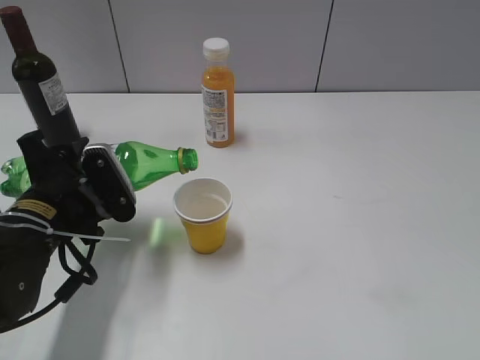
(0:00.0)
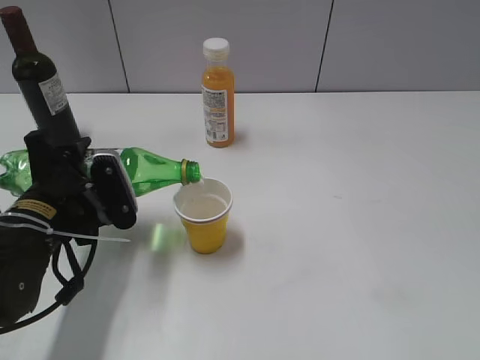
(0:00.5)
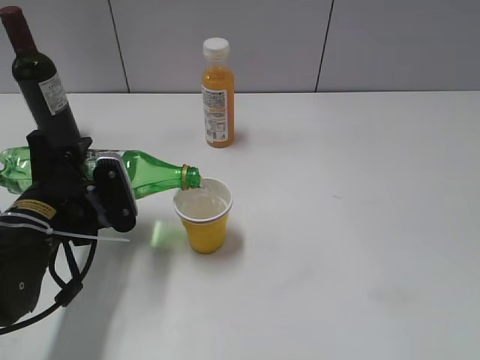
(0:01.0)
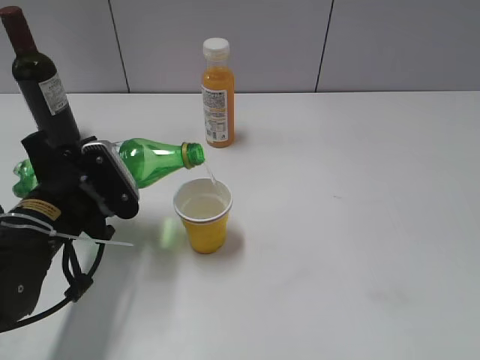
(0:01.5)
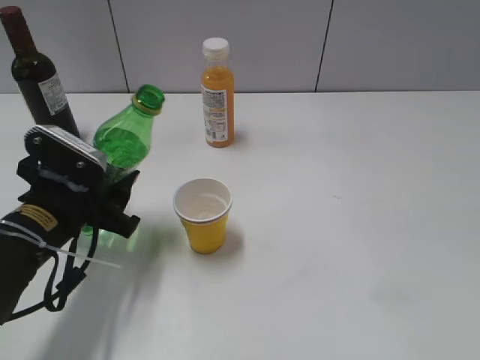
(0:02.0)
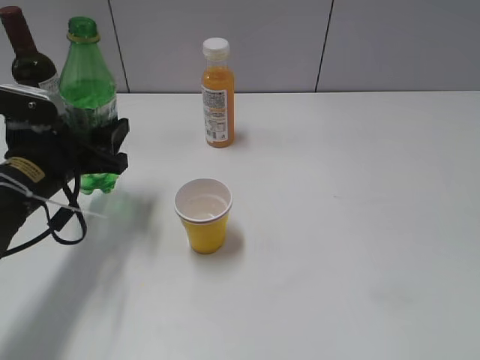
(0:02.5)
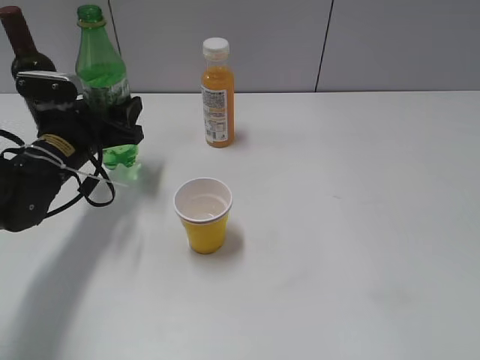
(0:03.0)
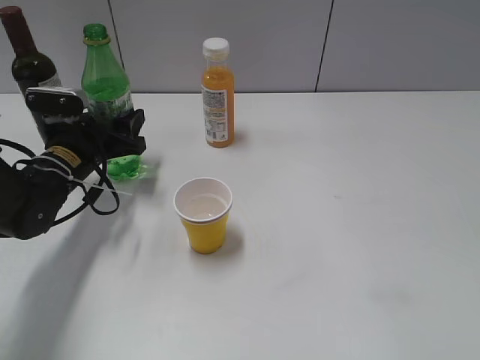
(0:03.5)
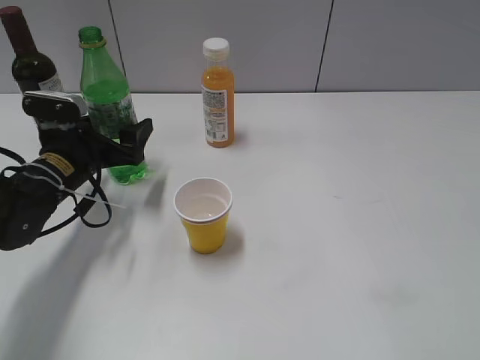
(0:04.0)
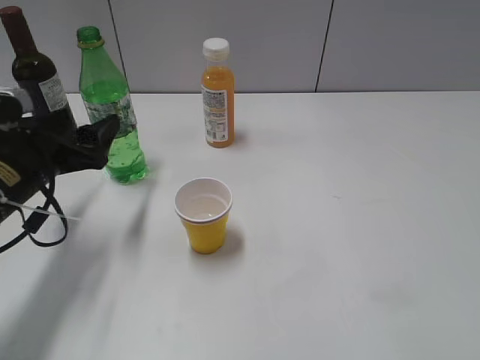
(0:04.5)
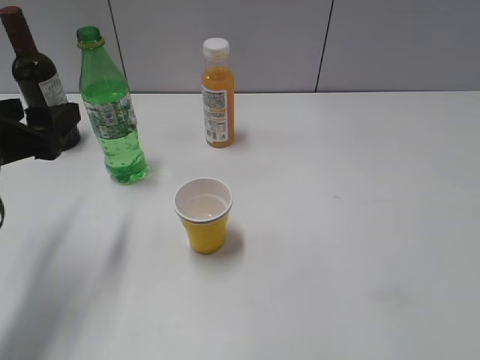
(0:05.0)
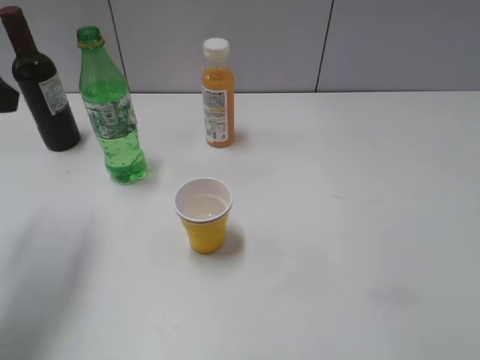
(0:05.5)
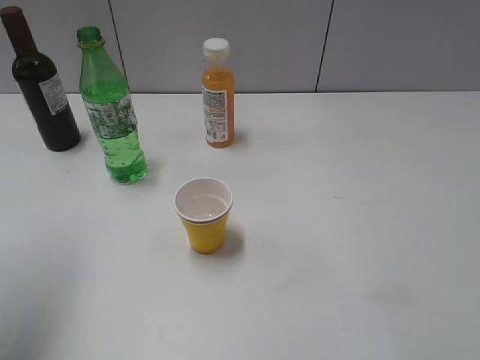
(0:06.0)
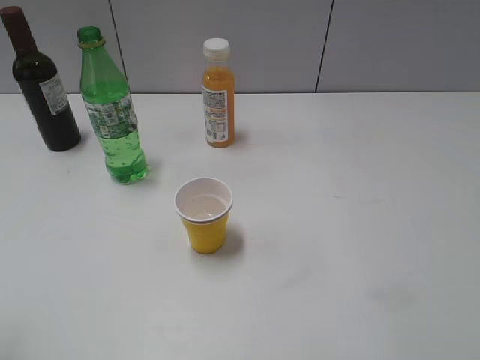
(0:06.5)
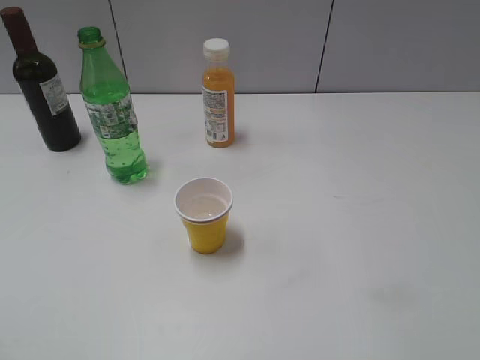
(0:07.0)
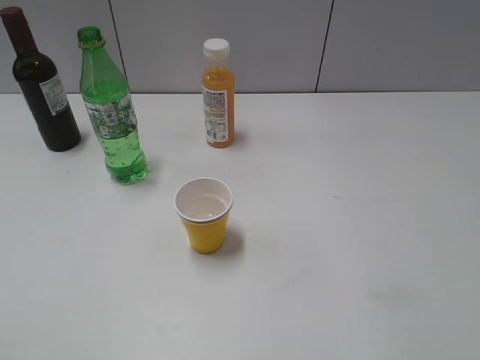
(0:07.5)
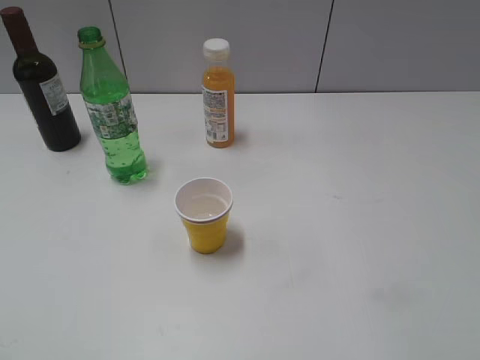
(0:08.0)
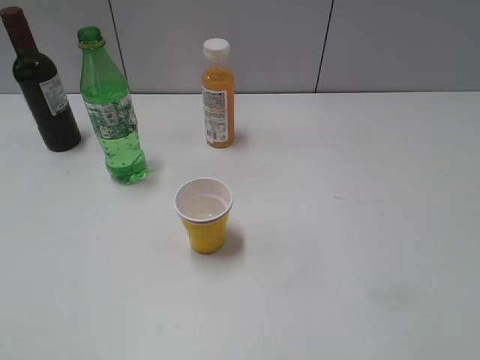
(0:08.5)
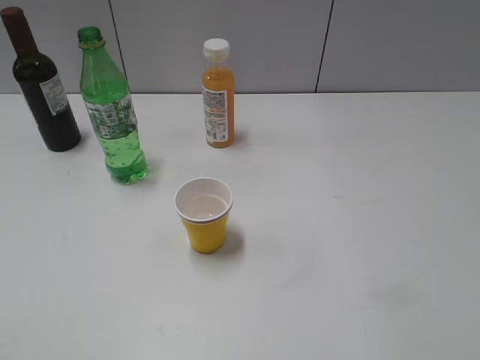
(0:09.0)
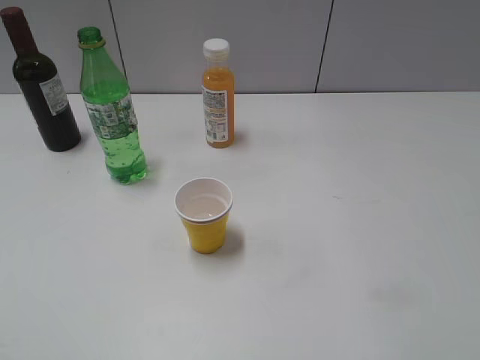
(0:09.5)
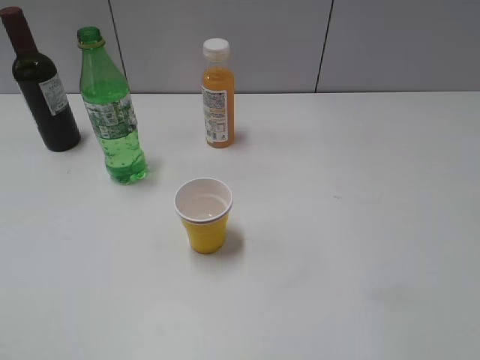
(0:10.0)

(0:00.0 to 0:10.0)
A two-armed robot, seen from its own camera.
Step, 0:02.0 - 0:04.0: Place the sprite bottle on the table with left gripper.
0:02.0 - 0:04.0: The left gripper moves forward, some 10 cm, and opens up.
0:04.0 - 0:06.0: The left gripper heads upward and backward, covering approximately 30 cm, and closes.
0:06.0 - 0:08.0: The left gripper moves backward, about 20 cm.
